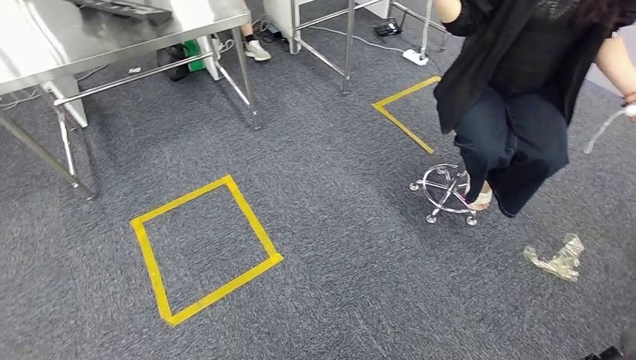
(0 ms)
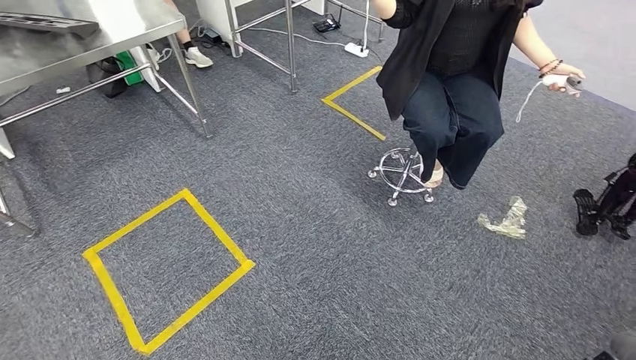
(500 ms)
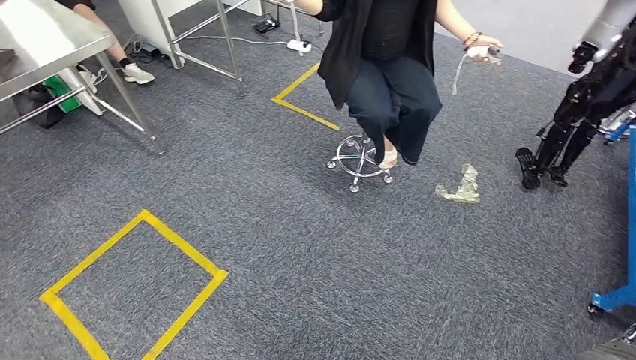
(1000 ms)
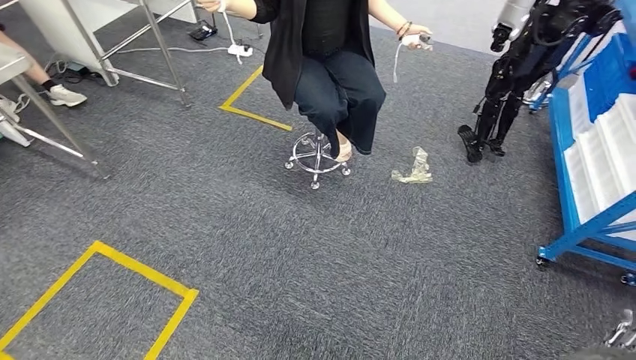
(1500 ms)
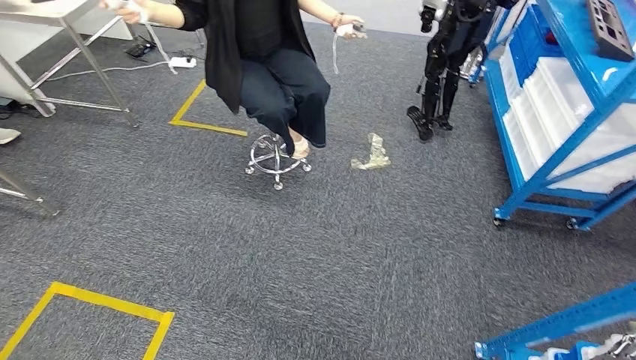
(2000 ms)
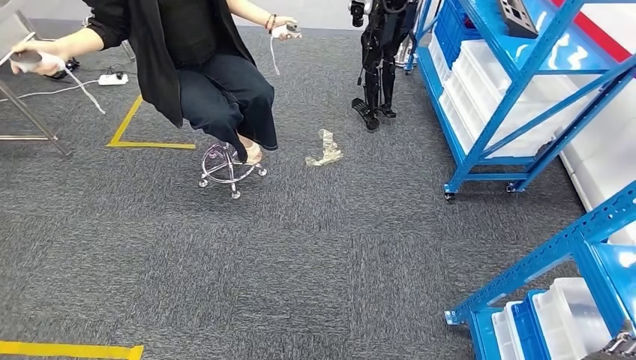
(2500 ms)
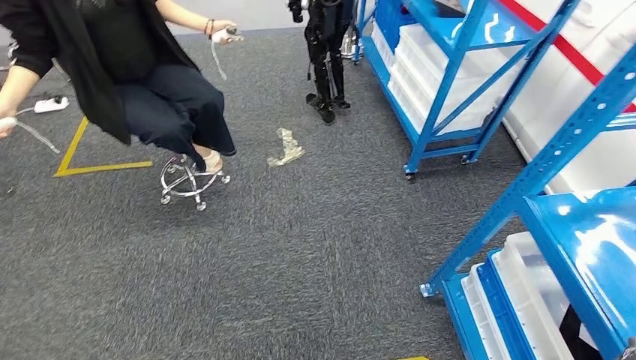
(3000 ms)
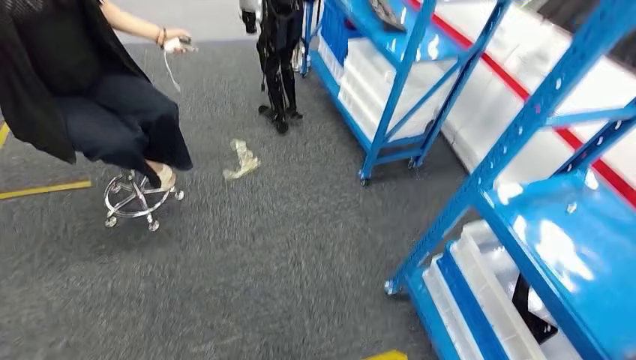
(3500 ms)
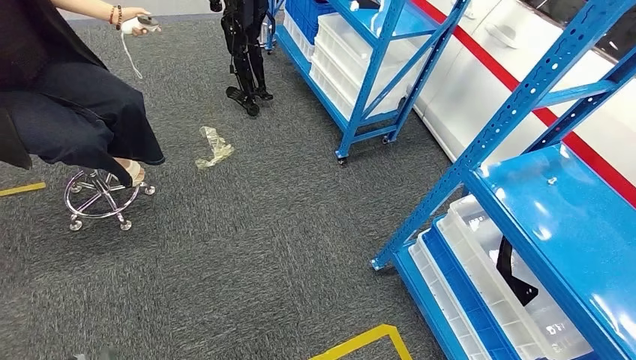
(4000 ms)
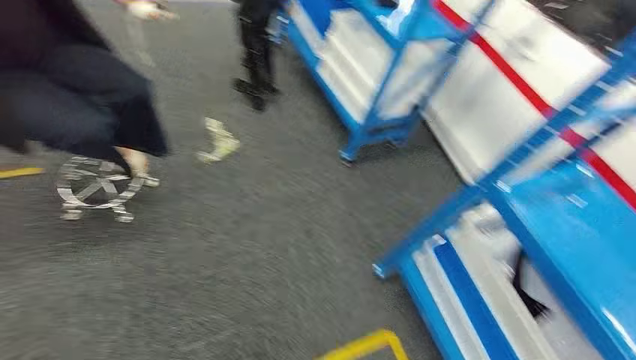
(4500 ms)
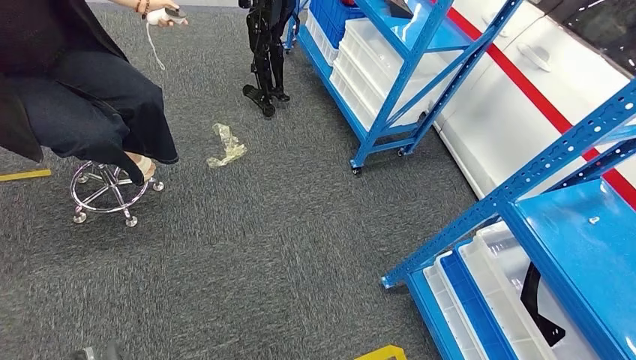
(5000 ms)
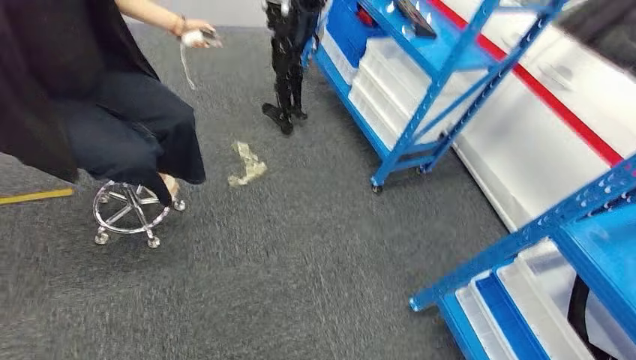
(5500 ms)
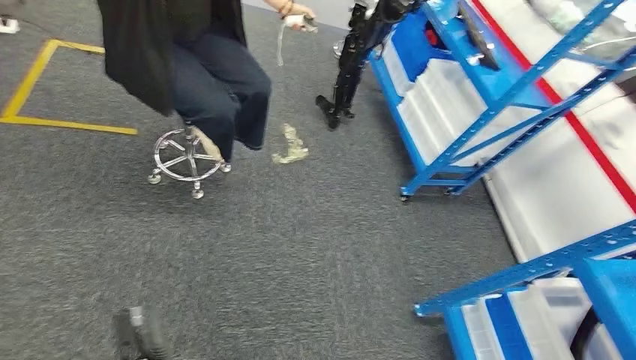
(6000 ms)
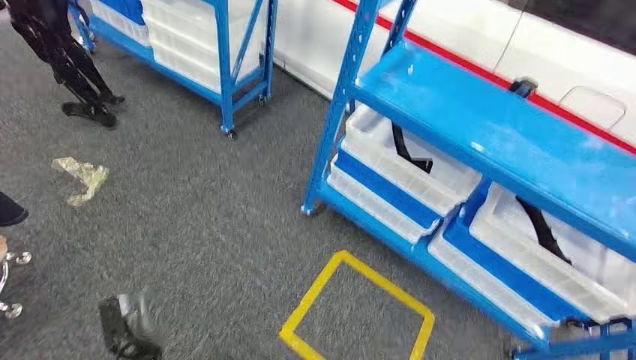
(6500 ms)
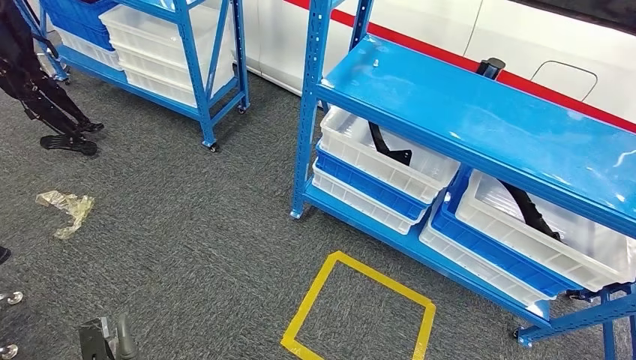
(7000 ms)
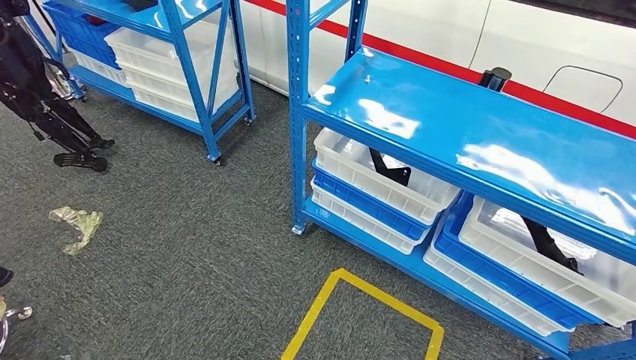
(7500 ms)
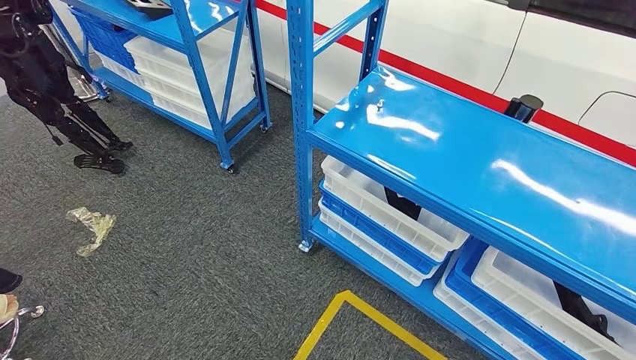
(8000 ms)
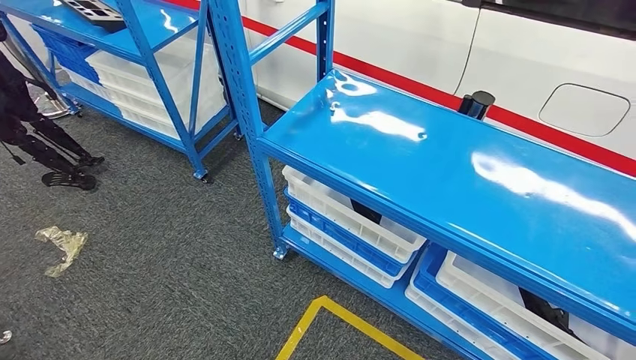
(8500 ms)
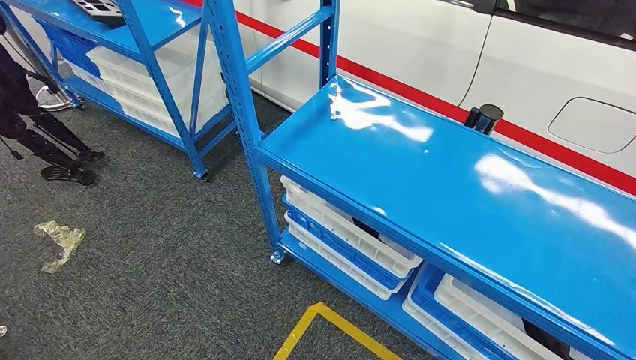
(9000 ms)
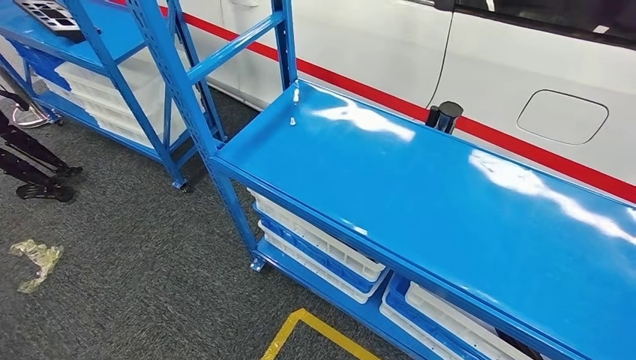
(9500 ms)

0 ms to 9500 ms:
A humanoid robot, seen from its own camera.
Step, 0 ms to 9500 ms: Move to the initial position of the shelf.
